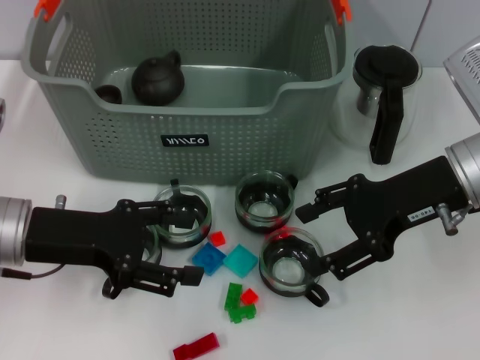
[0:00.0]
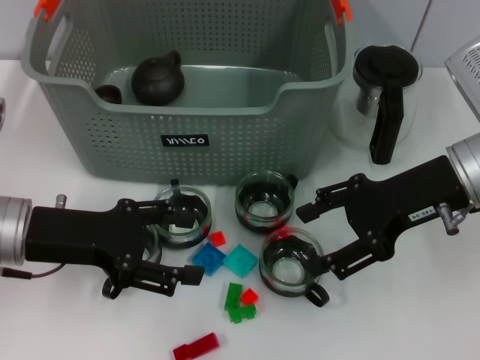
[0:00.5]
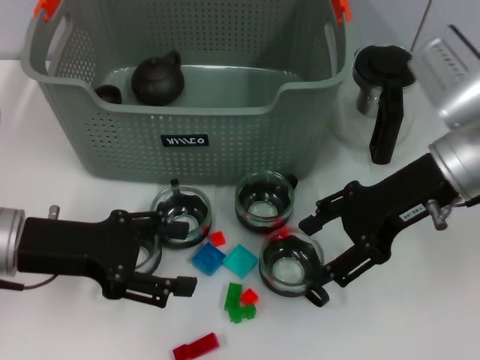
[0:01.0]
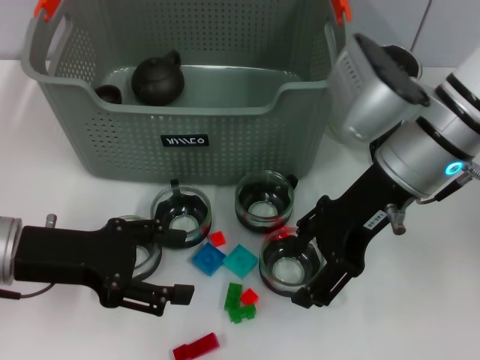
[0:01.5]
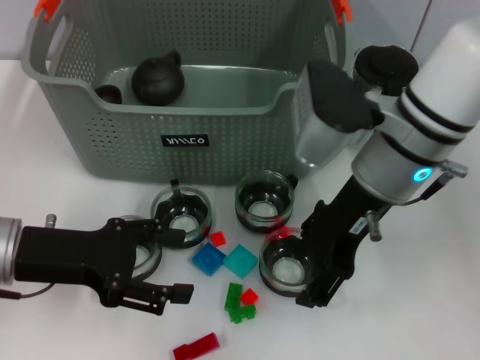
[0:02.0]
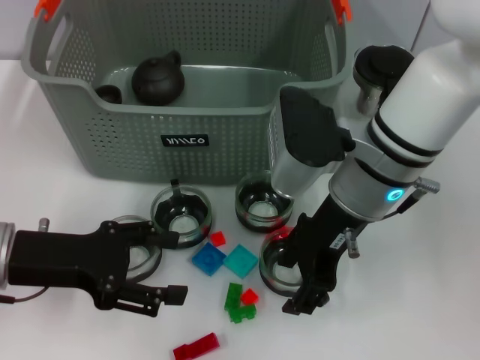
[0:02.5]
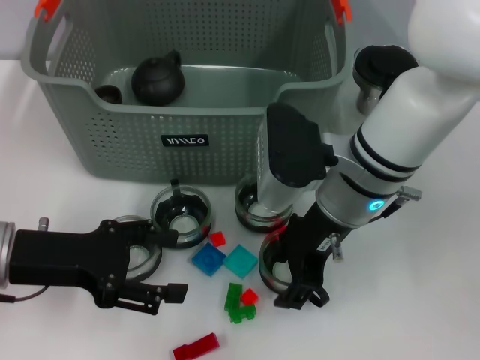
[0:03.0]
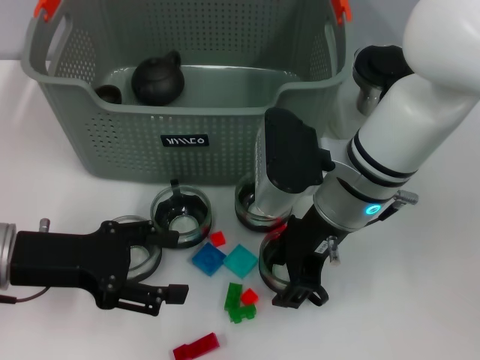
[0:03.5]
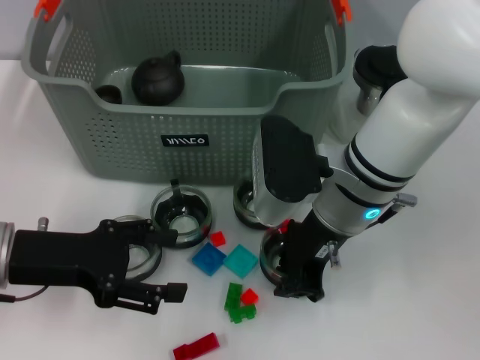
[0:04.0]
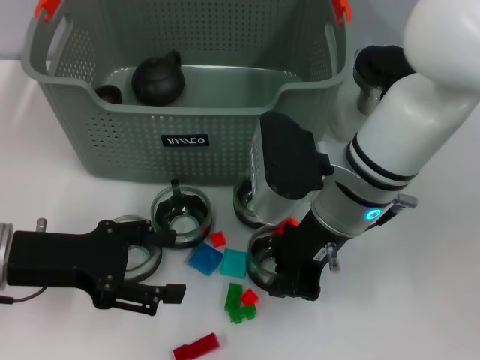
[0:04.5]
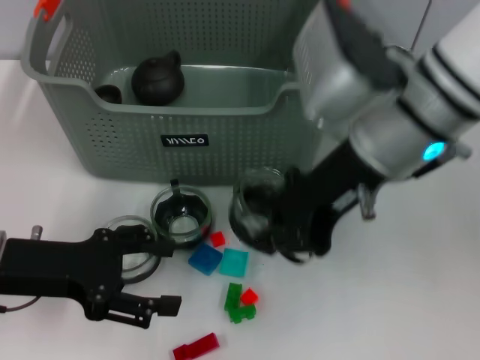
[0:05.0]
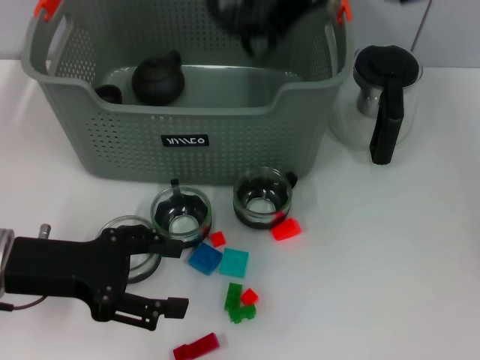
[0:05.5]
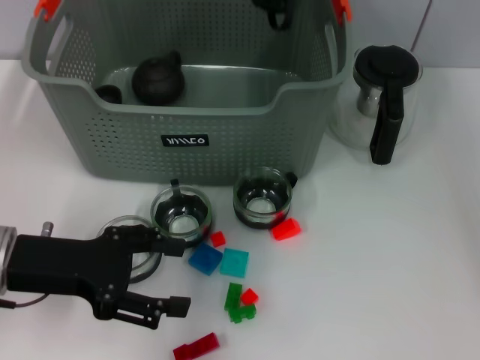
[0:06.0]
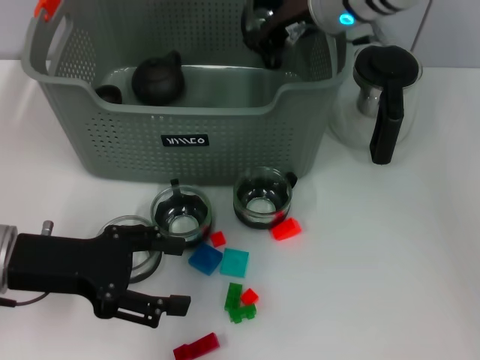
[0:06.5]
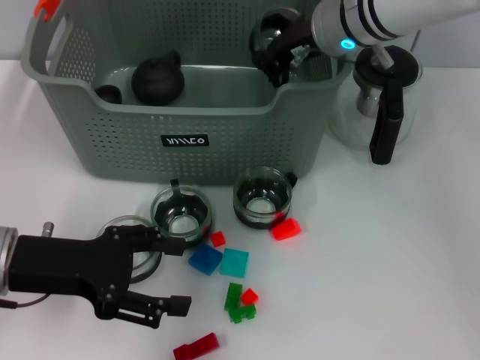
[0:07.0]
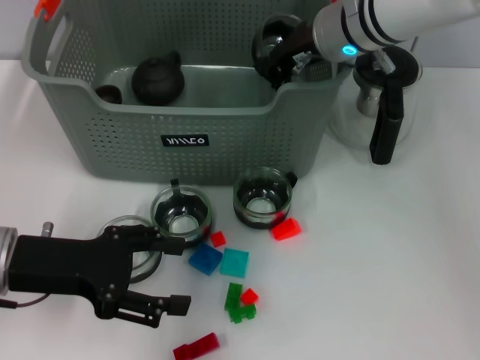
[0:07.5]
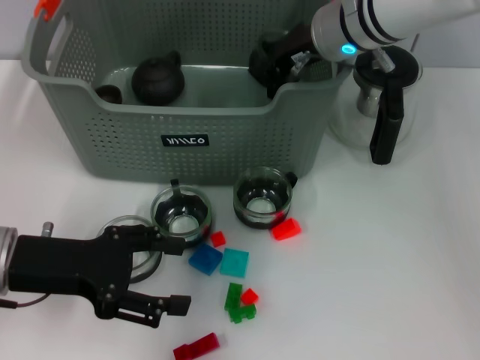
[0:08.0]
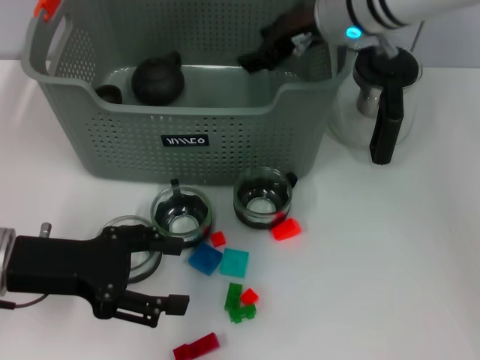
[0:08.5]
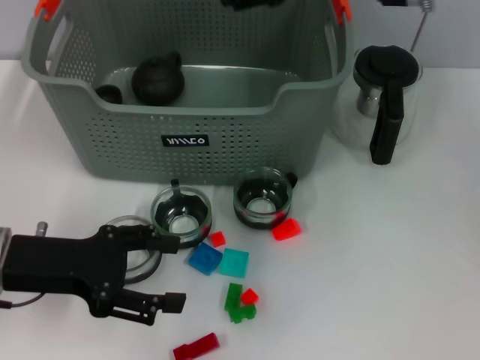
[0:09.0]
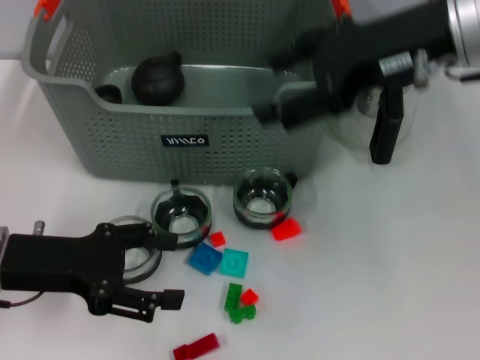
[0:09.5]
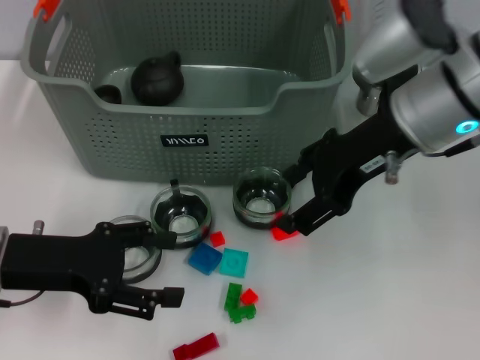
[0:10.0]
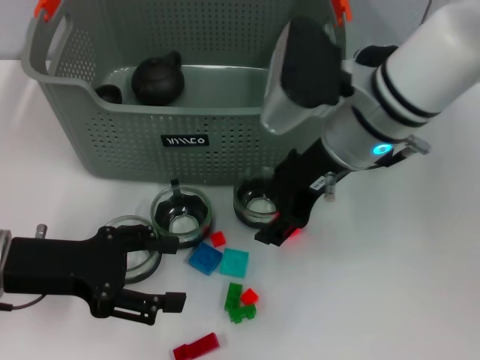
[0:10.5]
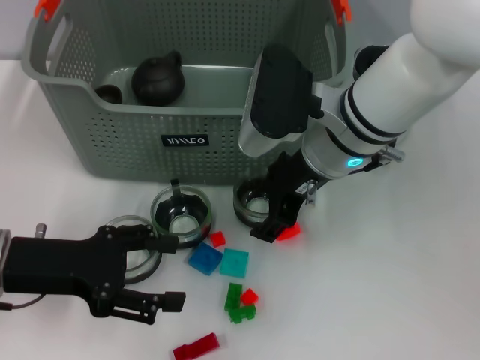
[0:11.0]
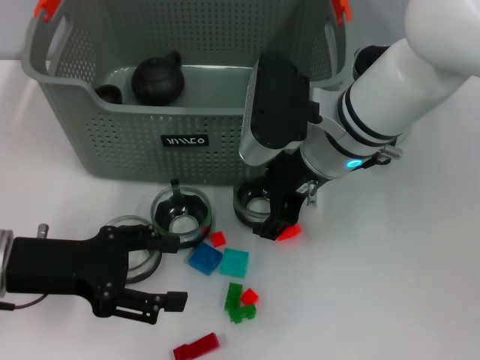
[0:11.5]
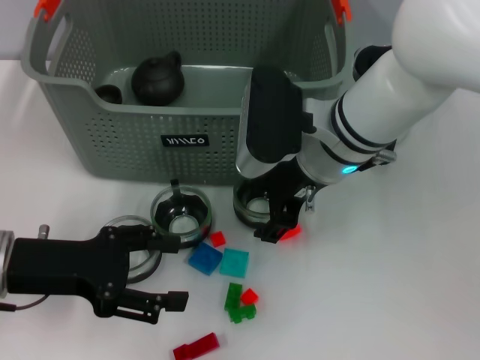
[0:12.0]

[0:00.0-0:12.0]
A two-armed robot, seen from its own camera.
Task of the whole recording: pick up the teacup on the table and place it into the storage bin, pick up the block on the table and place it into the storage bin.
Step, 0.0 to 3.5 s: Grasp the cup with right gripper.
Step, 4.5 to 8.5 s: Place the cup in the storage box with right gripper.
0.0 to 2.0 s: The right gripper shifts some 10 cm to the left.
2.0 to 4.0 s: The right gripper moves roughly 5 cm, and closes.
4.0 to 6.0 s: The right gripper goes some 20 cm upward and forward, and closes up.
6.0 to 8.0 s: The right gripper is displaced downward by roughly 10 cm.
8.0 to 10.0 s: The right gripper goes roughly 10 cm backward, and opens its fingers.
10.0 to 12.0 s: The right gripper moves downward and to the left, roughly 10 cm.

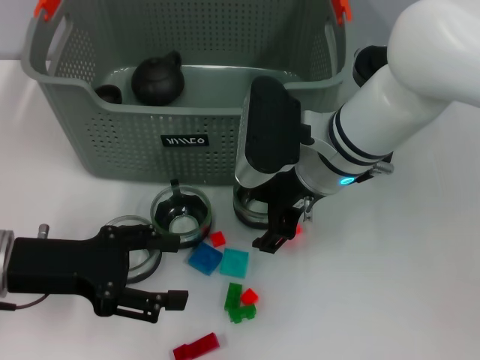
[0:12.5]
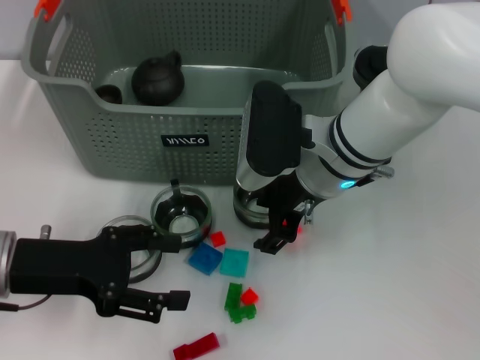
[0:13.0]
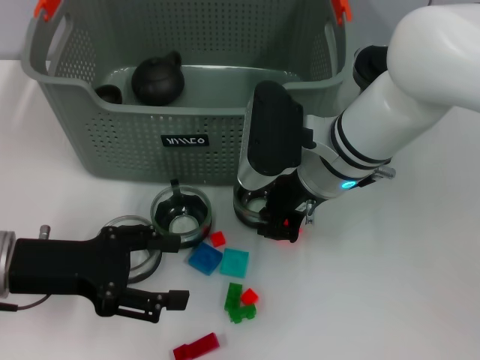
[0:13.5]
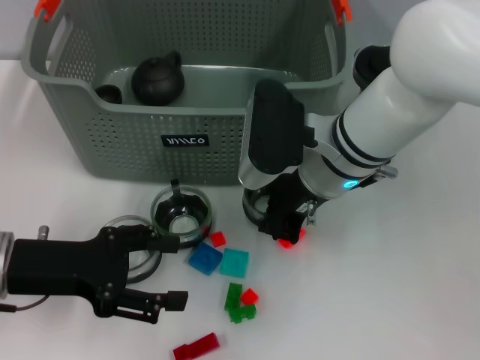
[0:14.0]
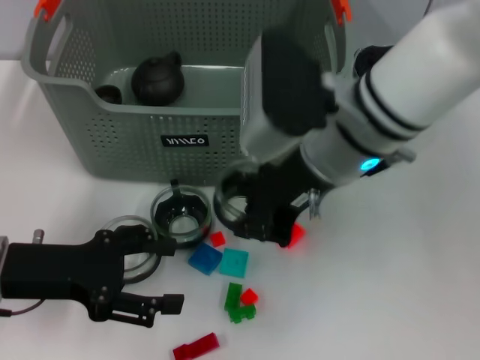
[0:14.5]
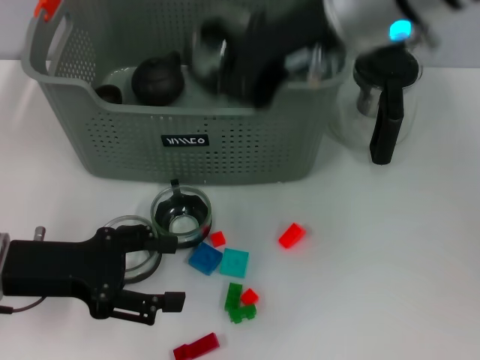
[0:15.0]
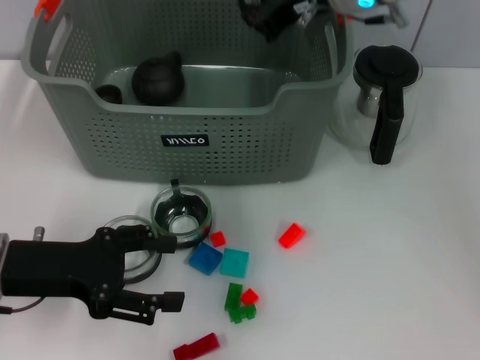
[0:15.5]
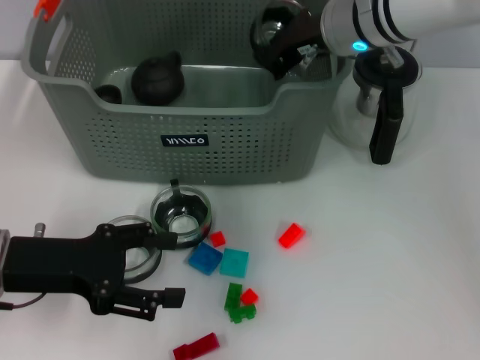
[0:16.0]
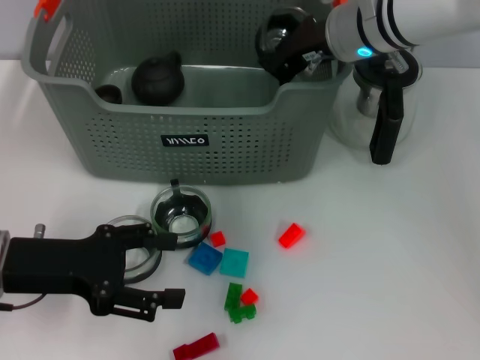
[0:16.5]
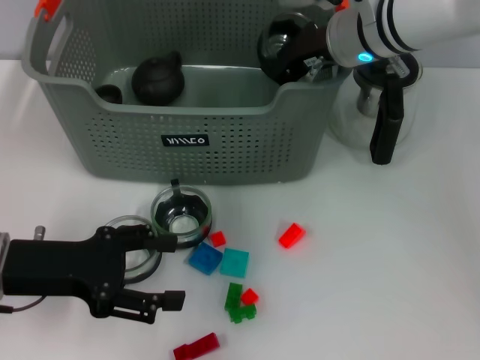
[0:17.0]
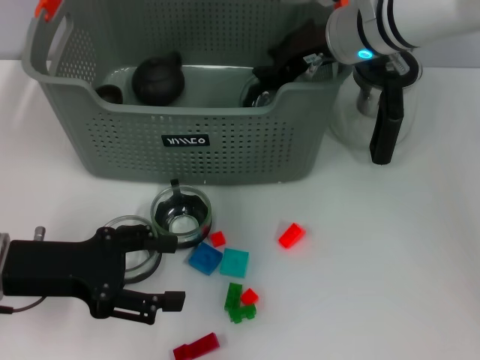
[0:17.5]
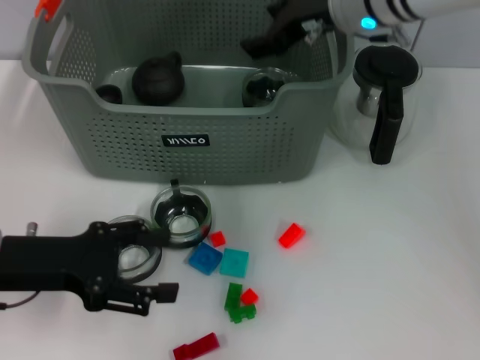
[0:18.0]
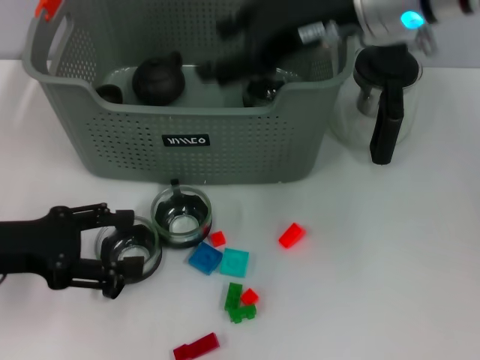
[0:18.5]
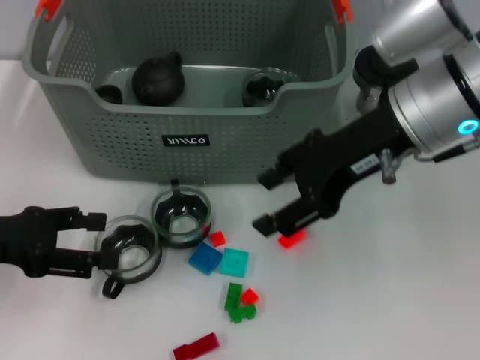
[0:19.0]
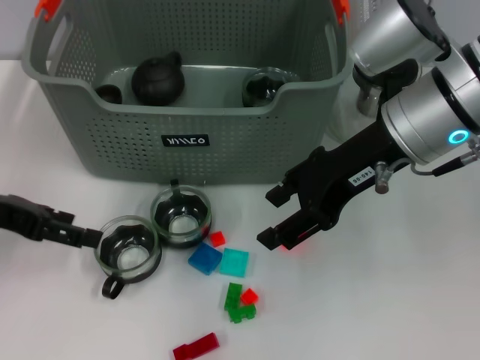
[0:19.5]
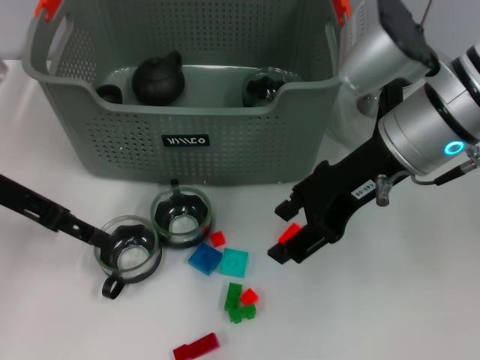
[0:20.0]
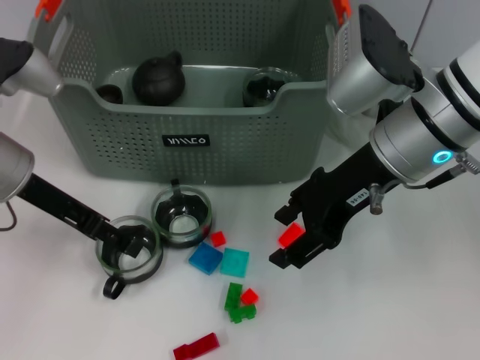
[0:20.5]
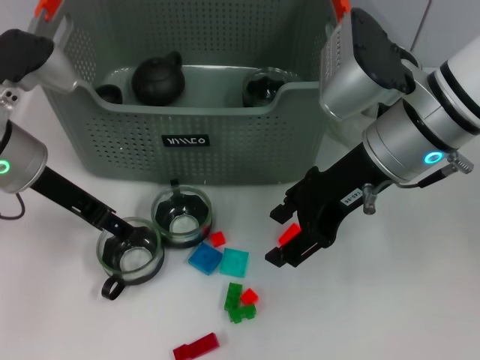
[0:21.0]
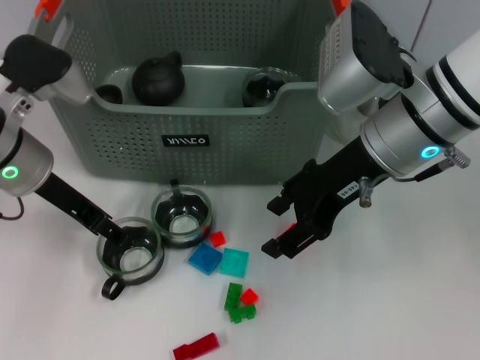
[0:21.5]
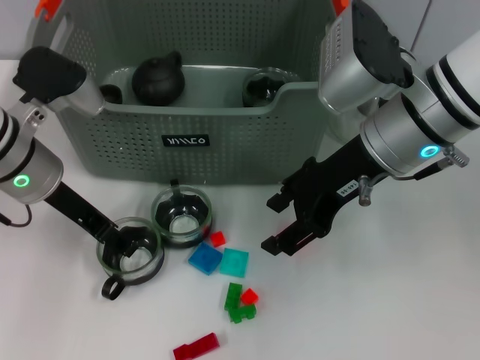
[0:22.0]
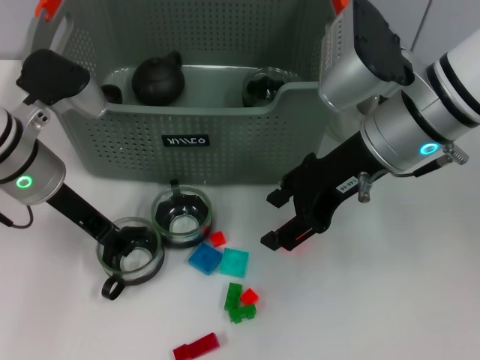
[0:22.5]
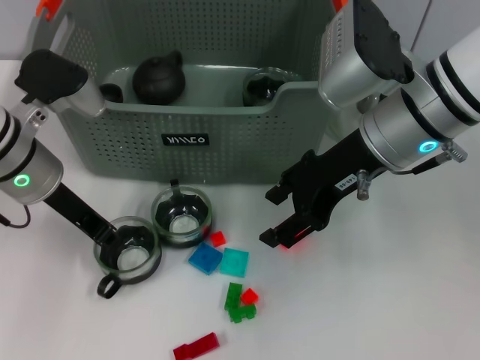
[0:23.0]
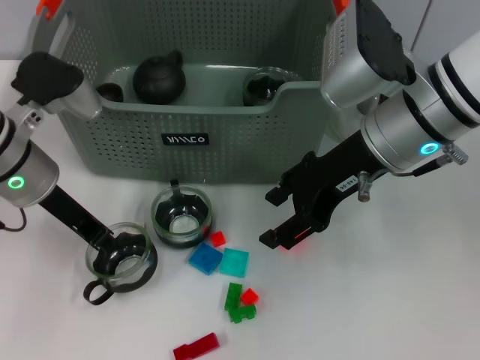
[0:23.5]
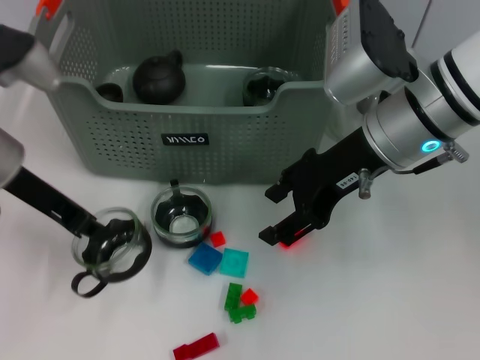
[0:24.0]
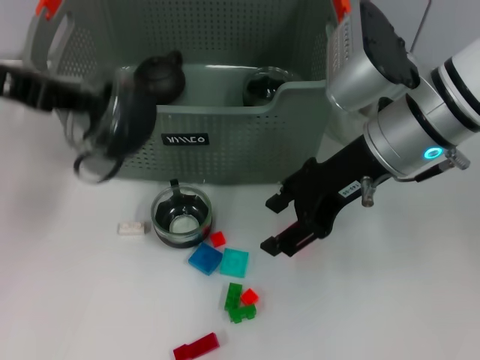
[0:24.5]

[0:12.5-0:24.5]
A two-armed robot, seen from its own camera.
Task of the whole recording: pick up the teacup on the table and place it into the storage bin, pick up the block on the table and place it into the storage bin.
Step, 14.0 to 18.0 s: Place the cup in the storage box with right gripper.
Step, 18.5 to 23.0 s: Grasp the cup with left gripper.
12.5 to 14.5 s: The right gripper travels upward by some 5 cm, and closes.
14.5 to 16.5 s: The right gripper heads forward, covering about 10 cm.
16.5 to 18.5 s: The right gripper heads upward and backward, covering about 10 cm, and opens its fingers.
18.5 to 20.5 s: The right gripper goes roughly 5 cm downward. The left gripper travels forward and to the right by about 10 cm.
20.5 to 22.5 s: The grippers move only a little.
22.5 to 24.5 s: The left gripper heads upward and to the left, covering some 15 cm, and closes.

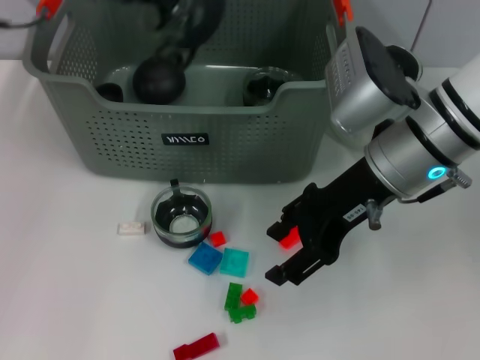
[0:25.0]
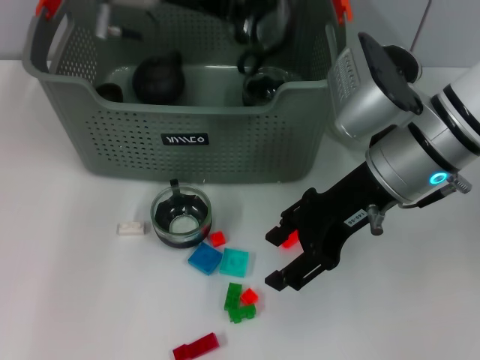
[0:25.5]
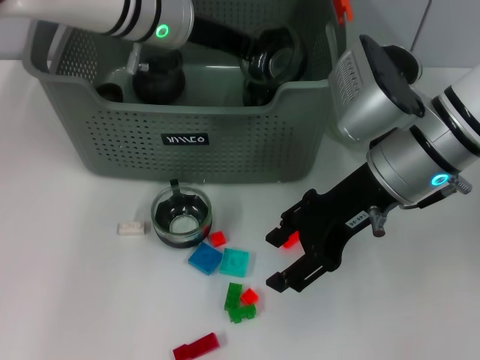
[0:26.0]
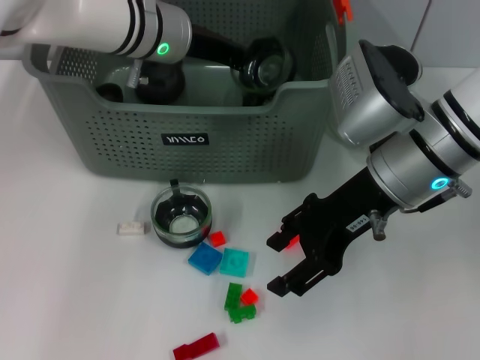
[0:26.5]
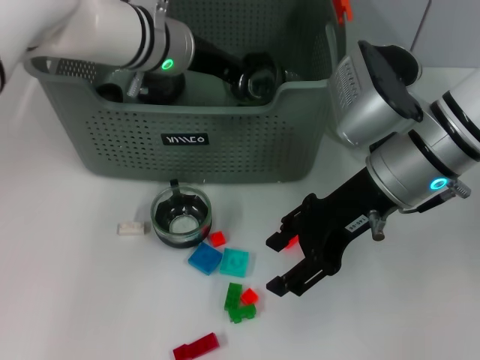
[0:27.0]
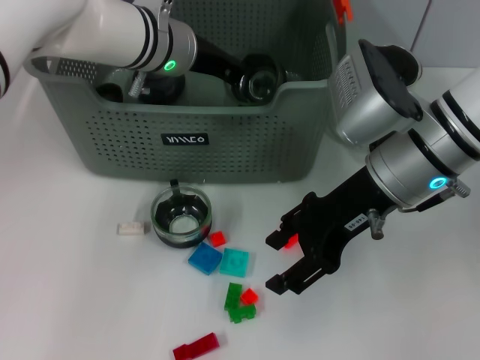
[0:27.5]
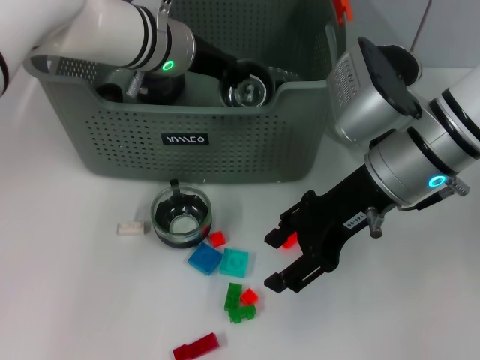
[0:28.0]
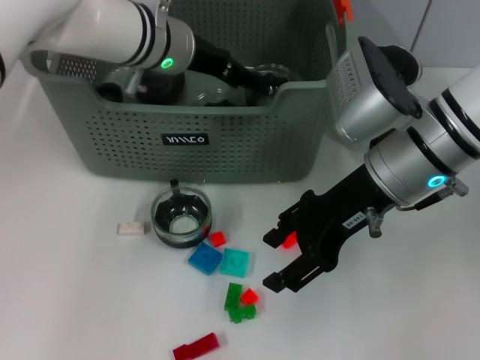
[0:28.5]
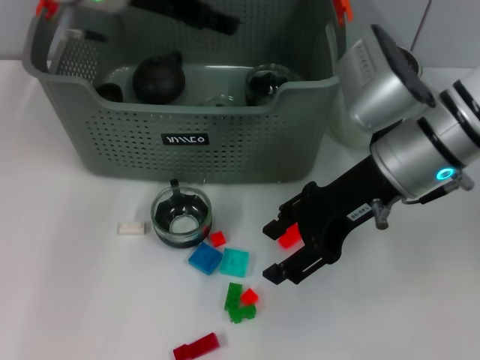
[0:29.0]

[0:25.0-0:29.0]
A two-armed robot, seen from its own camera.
Task of the whole recording: pick up the teacup on the table and place it into the storage bin, pick up the block on the table and place it into the storage bin.
25.0 to 27.0 s: The left gripper heads to the right and downward, covering approximately 20 cm.
27.0 to 29.0 s: The left gripper goes roughly 10 cm upward and to the left, and opens its fingers.
